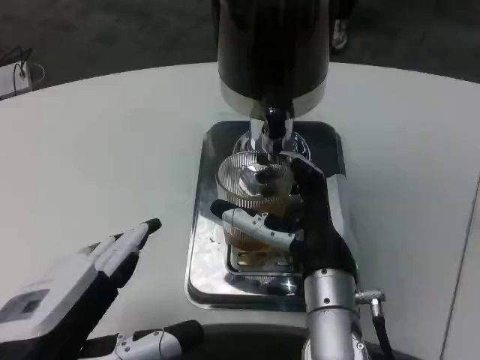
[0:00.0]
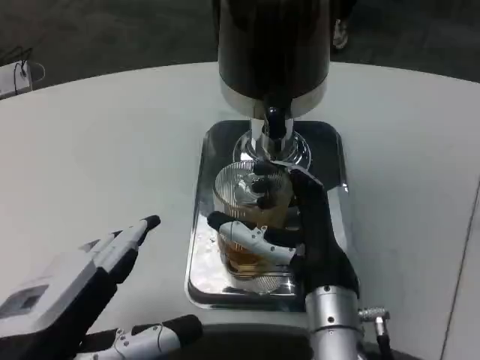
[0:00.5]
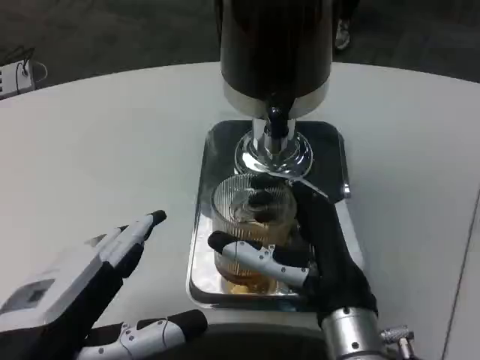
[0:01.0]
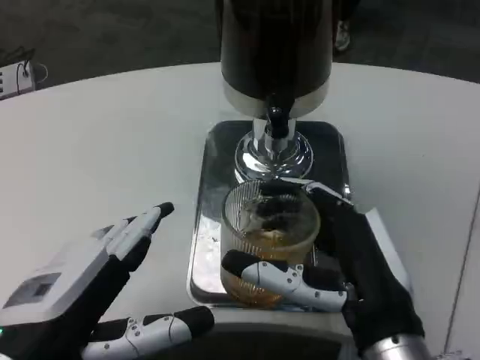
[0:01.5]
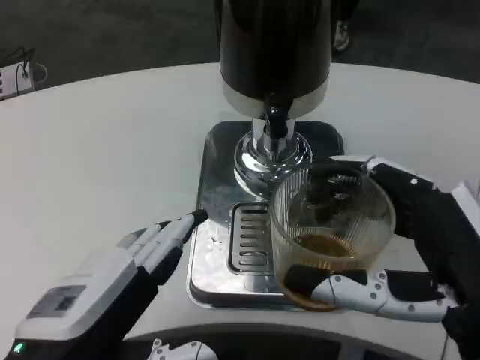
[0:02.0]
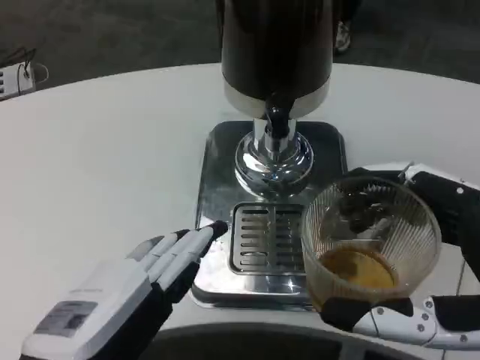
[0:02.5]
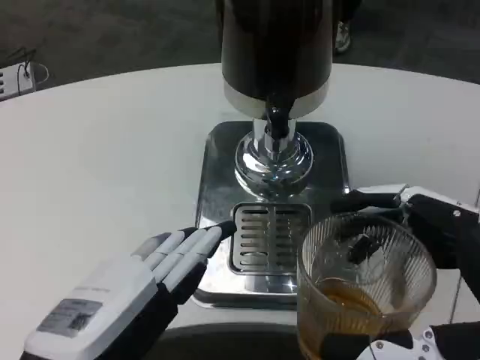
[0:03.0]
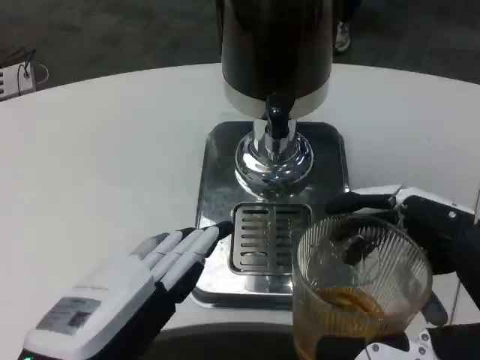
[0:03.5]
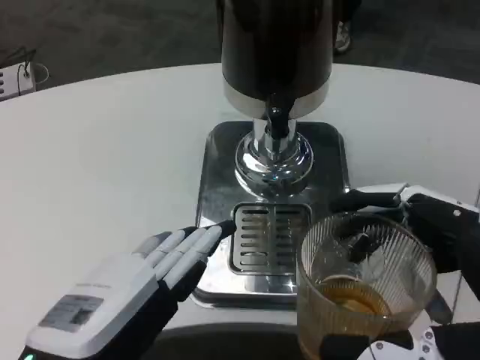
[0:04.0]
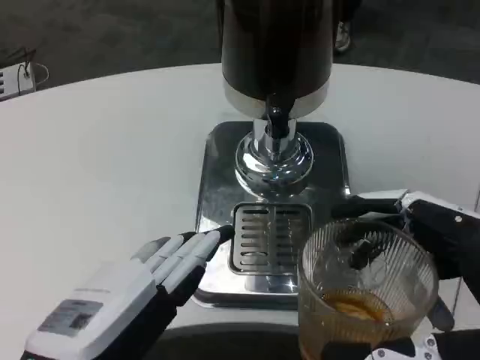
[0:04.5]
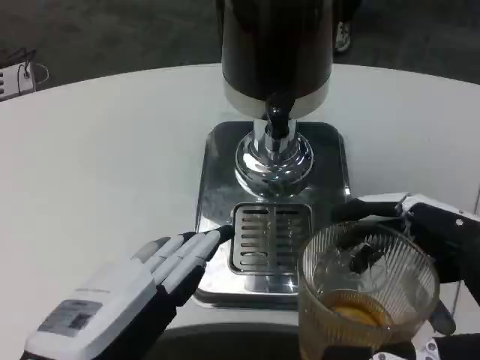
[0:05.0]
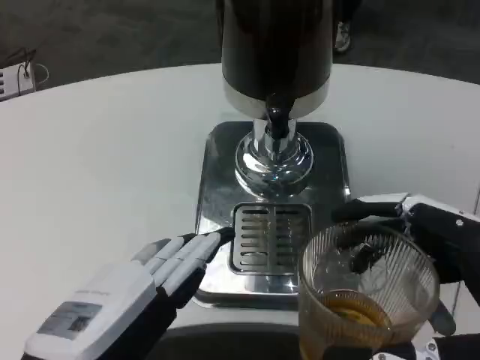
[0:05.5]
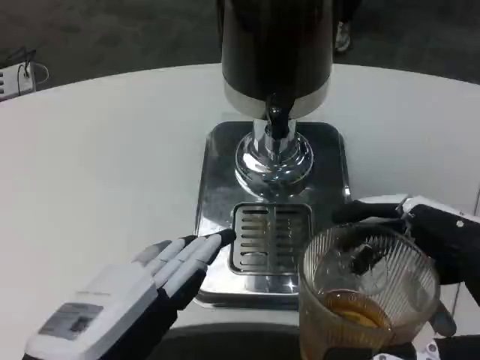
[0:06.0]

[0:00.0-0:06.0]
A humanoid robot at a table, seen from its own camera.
Task of the whole recording: Grasp the cup under the faucet to collect the drink, then remove the cup.
0:00.0 to 0:02.0: The right hand goes roughly 20 cm backward and to the right.
0:04.0 to 0:06.0: Both hands stay about where they are.

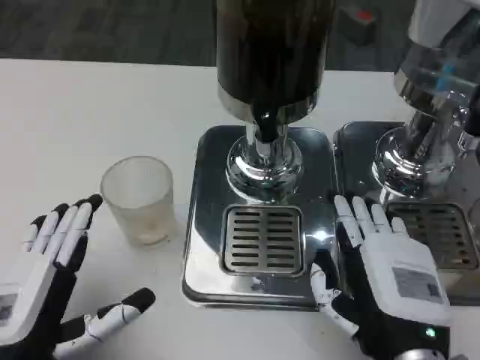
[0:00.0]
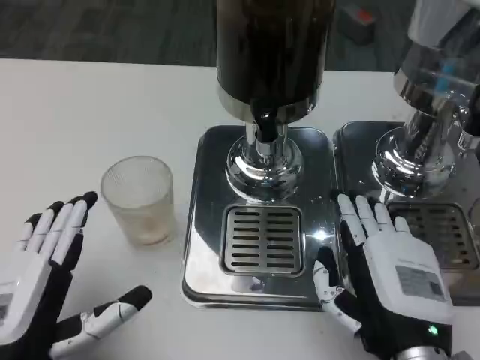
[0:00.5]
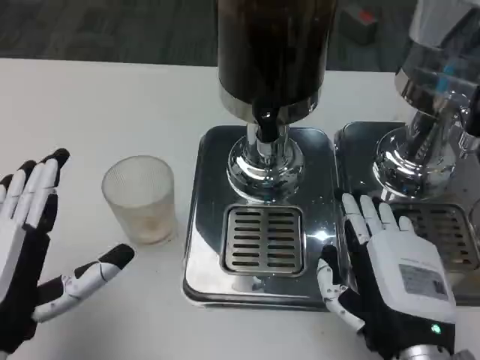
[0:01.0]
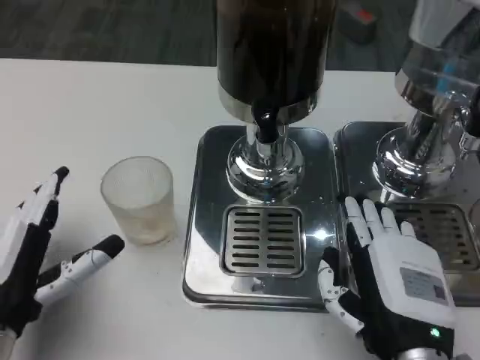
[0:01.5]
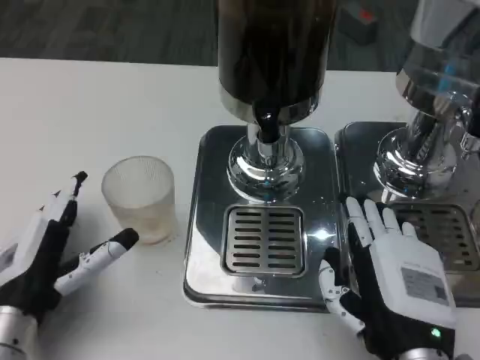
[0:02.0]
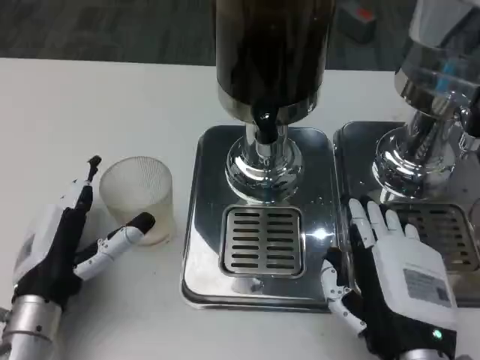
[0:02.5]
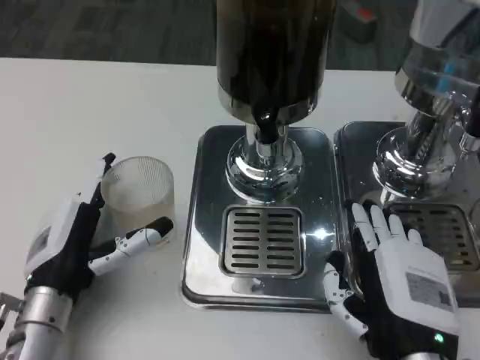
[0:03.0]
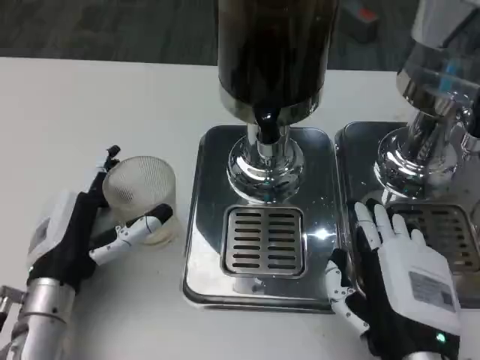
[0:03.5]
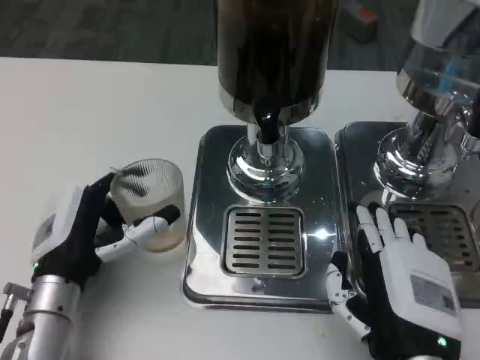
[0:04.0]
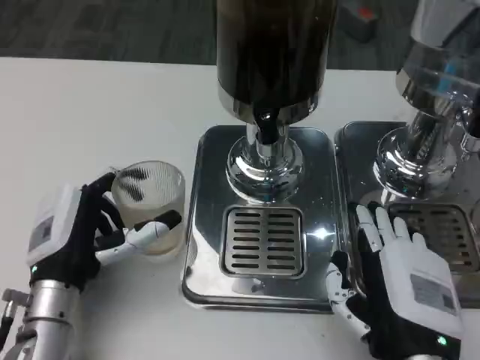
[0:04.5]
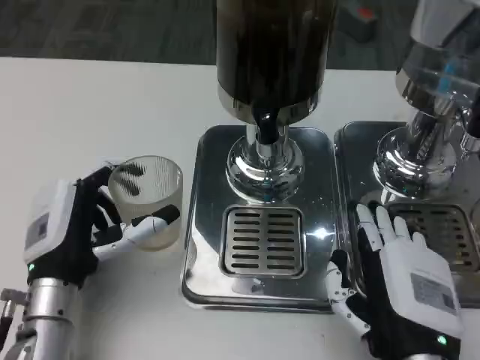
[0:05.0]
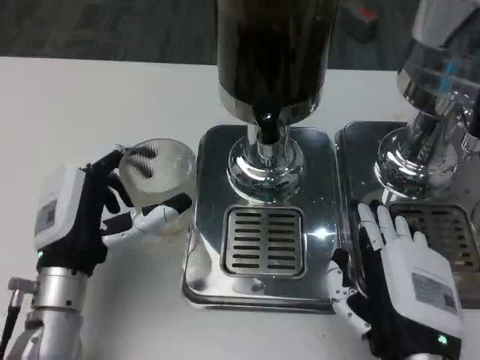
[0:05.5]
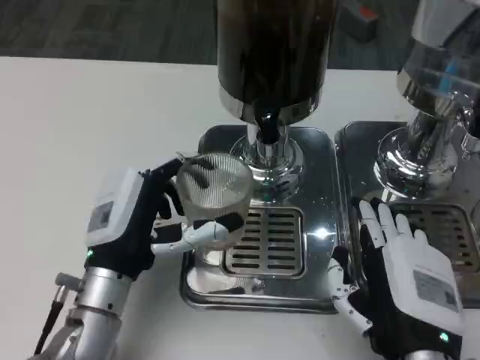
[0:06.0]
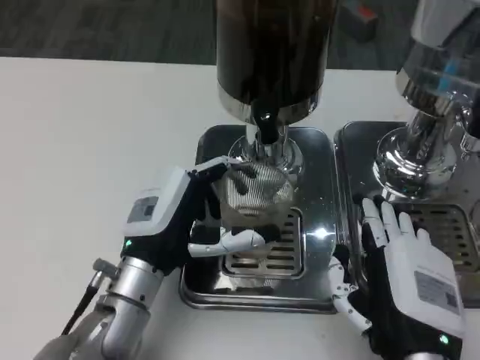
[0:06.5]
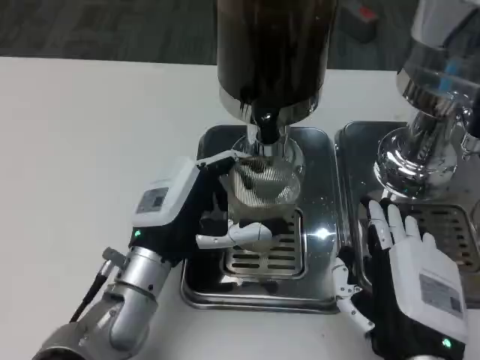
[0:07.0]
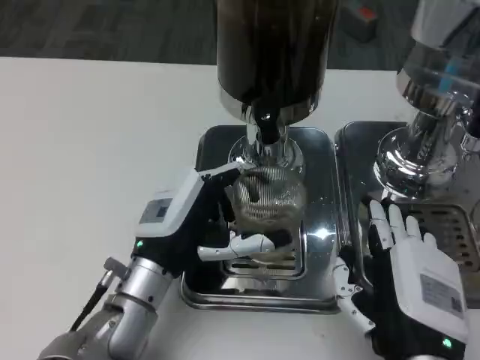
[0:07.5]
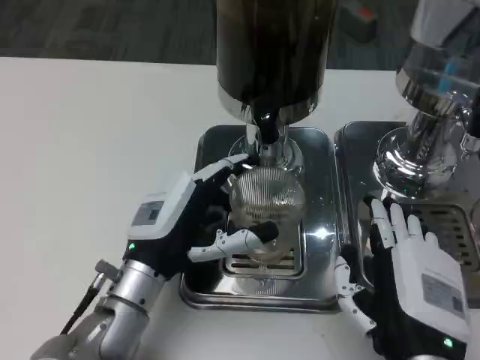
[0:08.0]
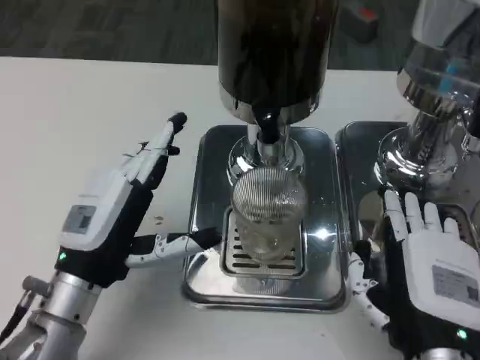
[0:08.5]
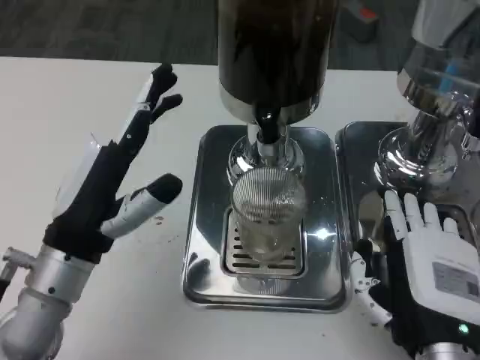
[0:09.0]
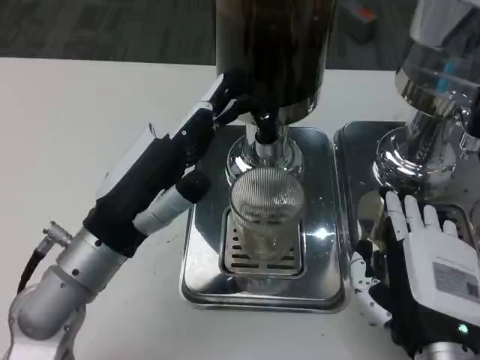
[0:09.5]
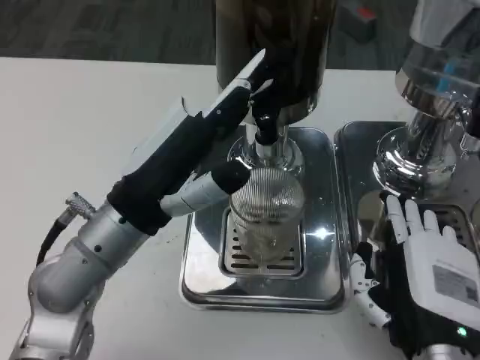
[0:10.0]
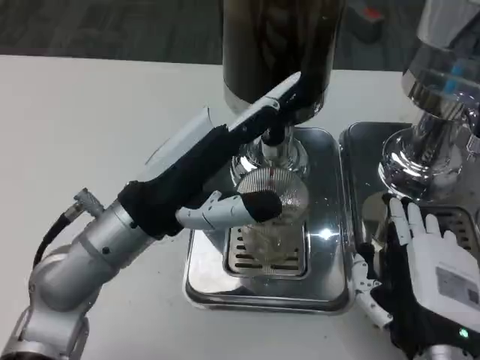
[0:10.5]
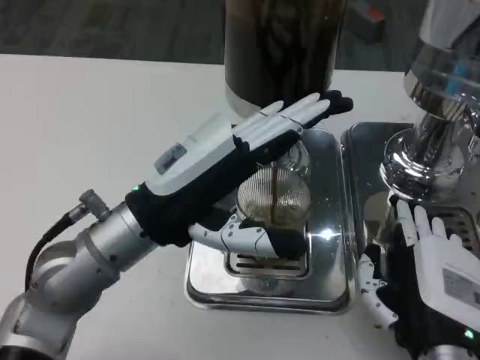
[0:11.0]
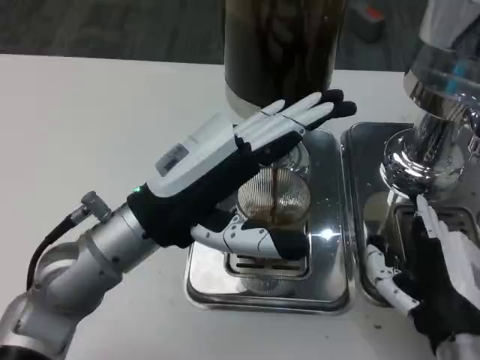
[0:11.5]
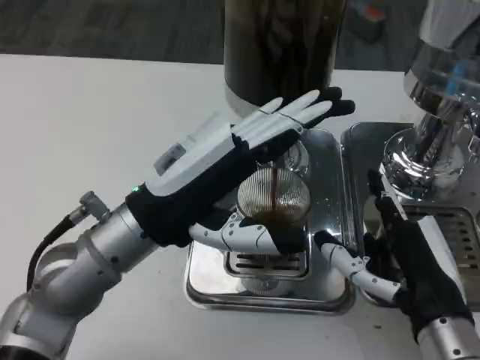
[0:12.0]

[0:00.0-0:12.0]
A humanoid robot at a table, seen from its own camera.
Task of the whole recording: Grasp the cup under the faucet to collect the drink, then remove the cup.
0:00.0 to 0:02.0: The left hand goes roughly 10 cm forward.
0:02.0 to 0:04.0: There are only small adjustments of the hands.
0:08.0 to 0:10.0: The left hand heads upward, covering about 10 cm.

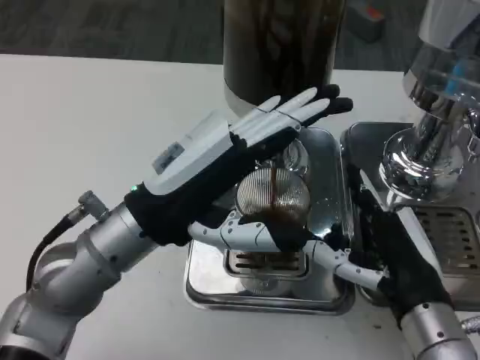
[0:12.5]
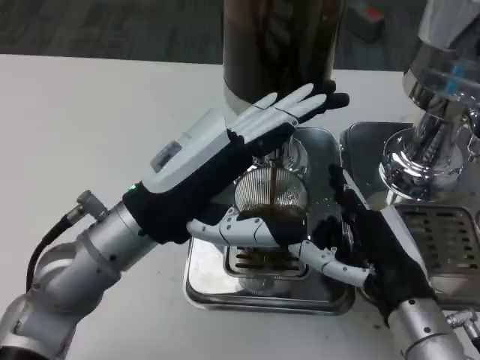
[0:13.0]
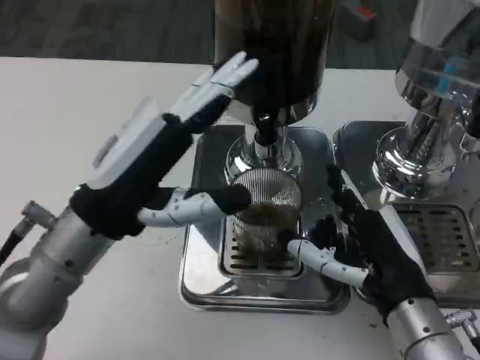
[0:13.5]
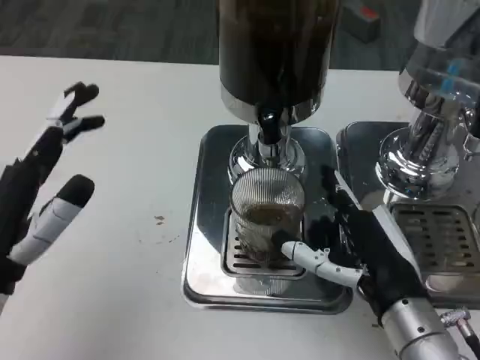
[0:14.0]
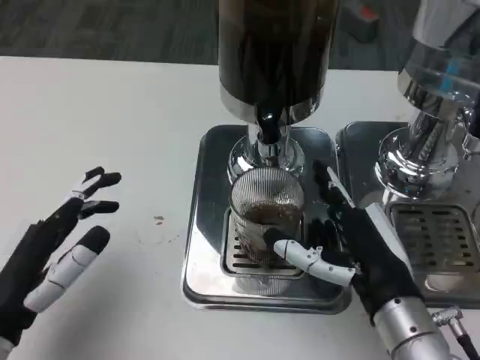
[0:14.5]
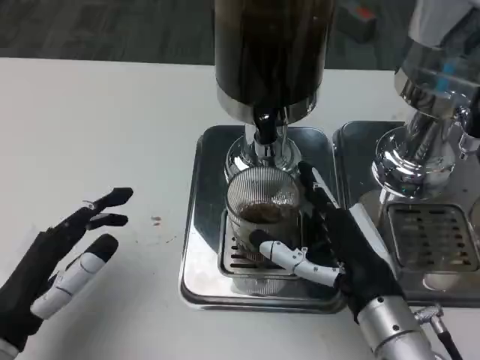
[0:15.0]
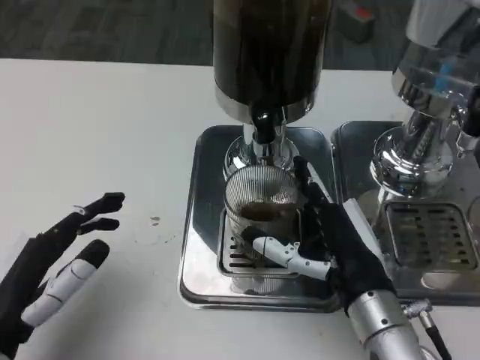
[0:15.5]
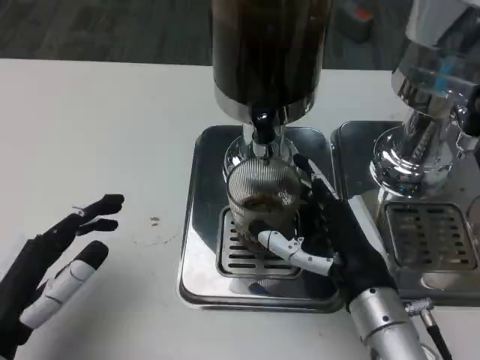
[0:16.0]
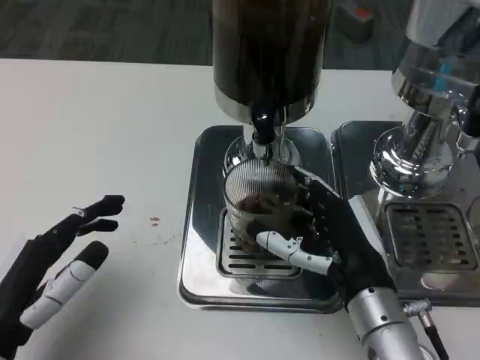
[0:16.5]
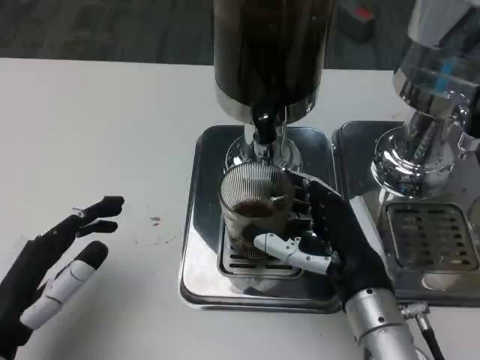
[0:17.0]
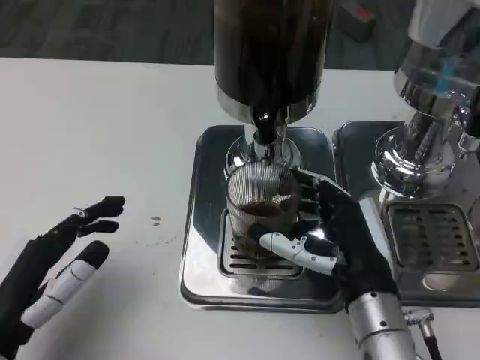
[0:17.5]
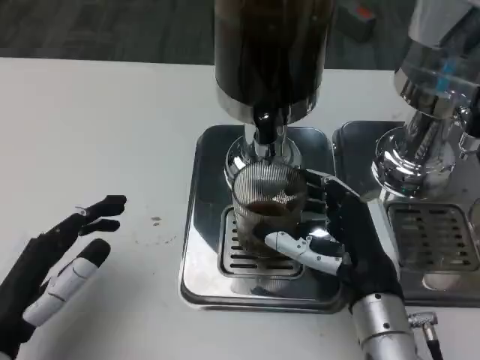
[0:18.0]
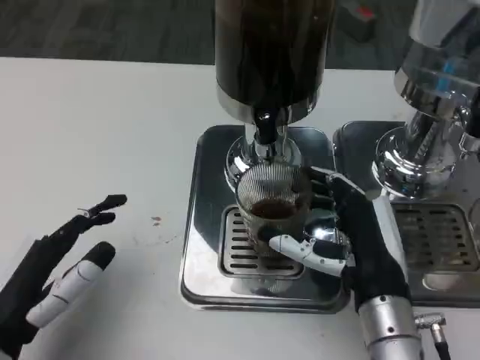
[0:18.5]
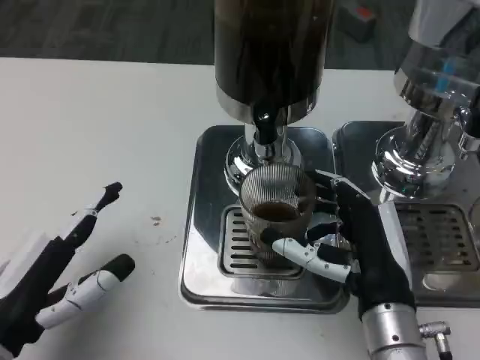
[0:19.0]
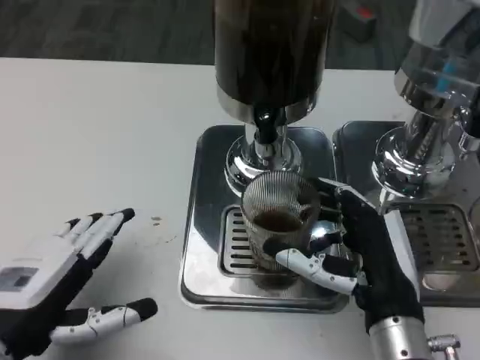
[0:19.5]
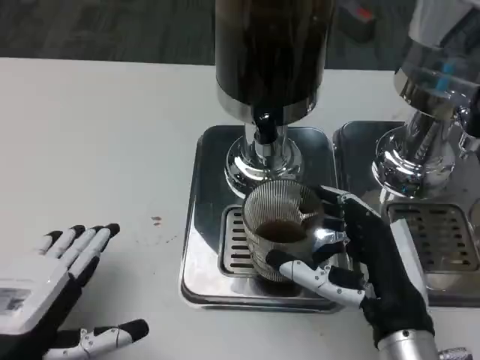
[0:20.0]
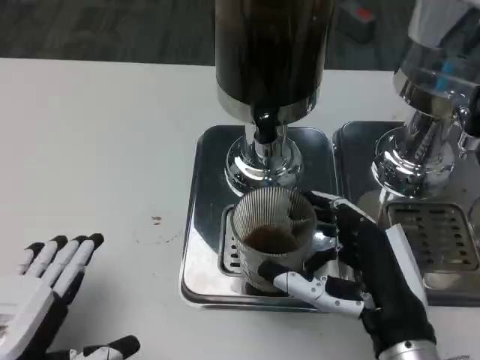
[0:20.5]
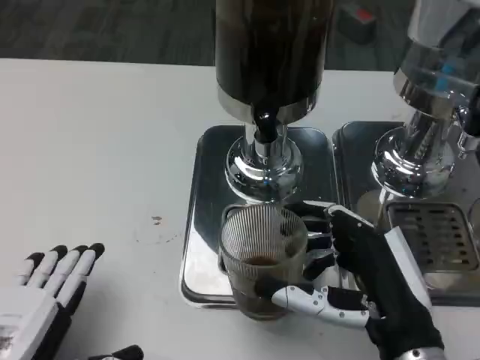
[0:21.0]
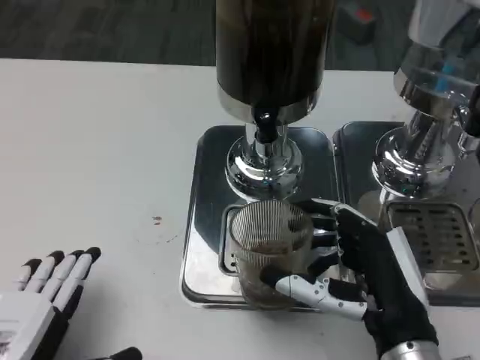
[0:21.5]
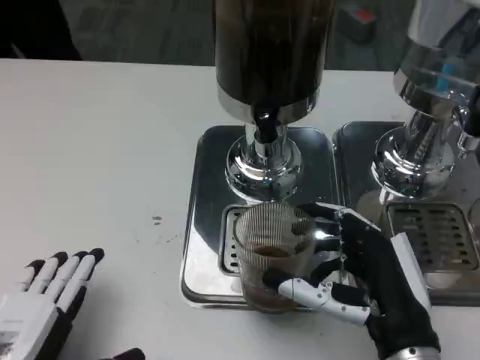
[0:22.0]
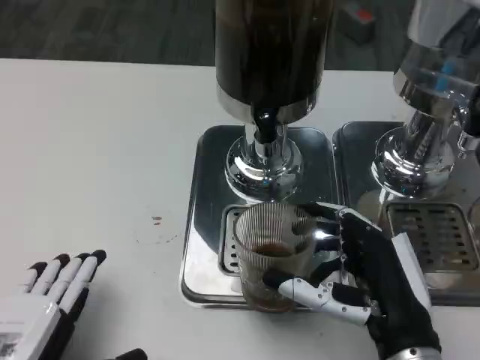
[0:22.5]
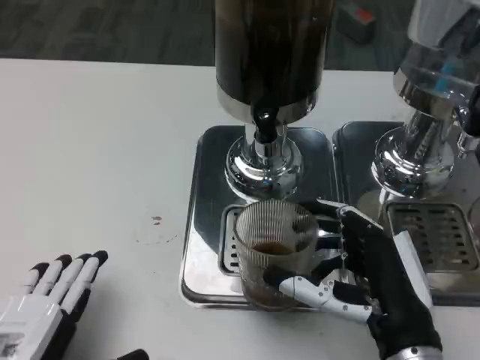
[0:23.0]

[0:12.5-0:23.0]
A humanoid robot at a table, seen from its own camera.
Task of the whole recording: Grasp the cup under the faucet to collect the drink, then remove the cup.
0:12.5 to 0:14.5: The left hand goes roughly 15 cm to the left, backward and downward.
0:16.5 to 0:19.0: The hands move only a little.
0:19.0 to 0:21.0: The right hand ends up roughly 5 cm from where it was. The left hand travels backward by approximately 5 cm.
0:21.0 to 0:23.0: There are only small adjustments of the hands.
